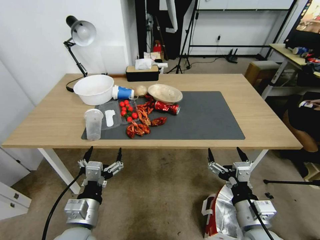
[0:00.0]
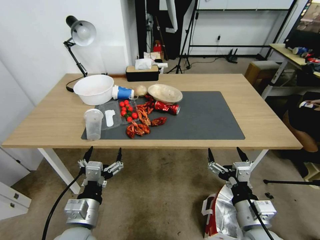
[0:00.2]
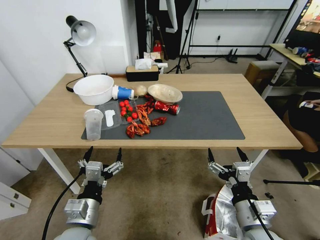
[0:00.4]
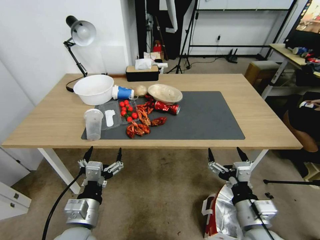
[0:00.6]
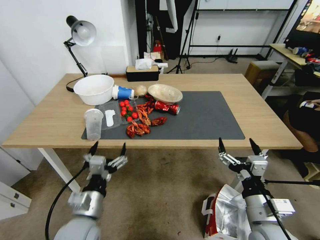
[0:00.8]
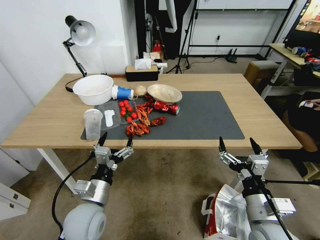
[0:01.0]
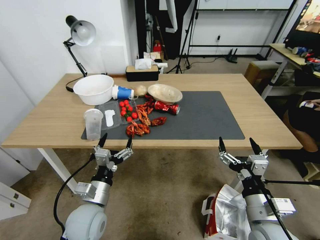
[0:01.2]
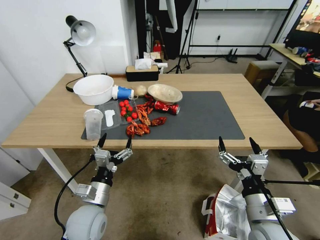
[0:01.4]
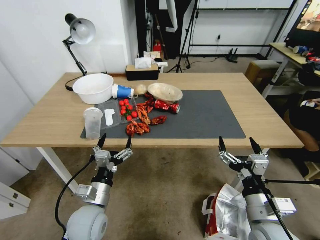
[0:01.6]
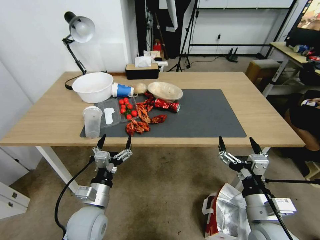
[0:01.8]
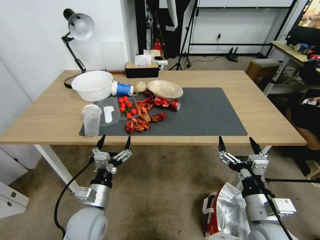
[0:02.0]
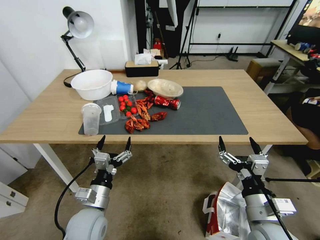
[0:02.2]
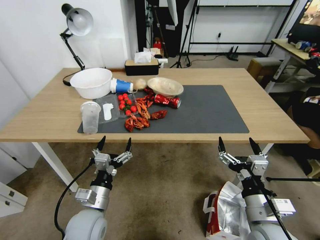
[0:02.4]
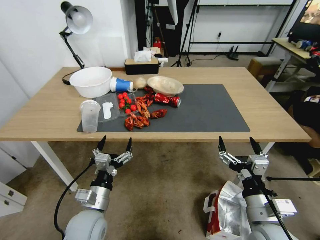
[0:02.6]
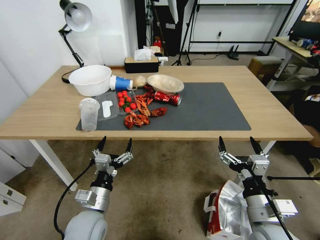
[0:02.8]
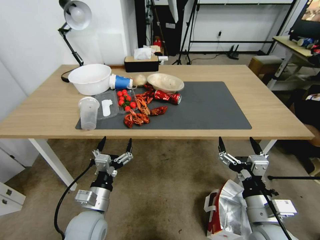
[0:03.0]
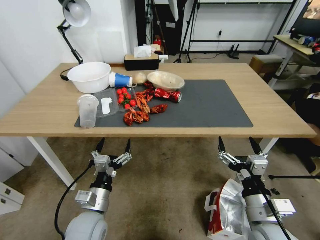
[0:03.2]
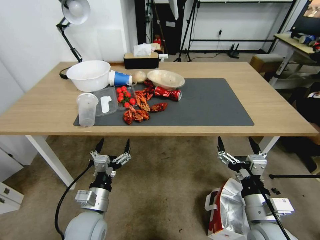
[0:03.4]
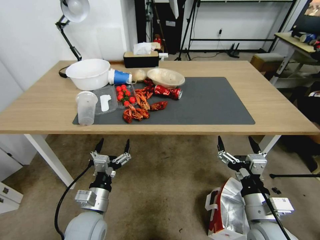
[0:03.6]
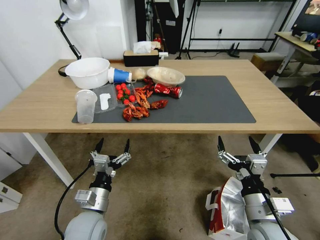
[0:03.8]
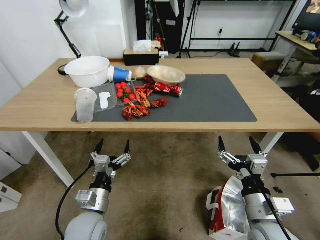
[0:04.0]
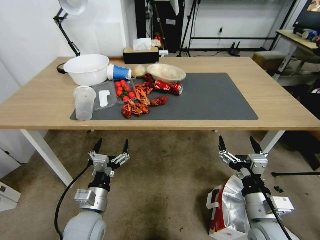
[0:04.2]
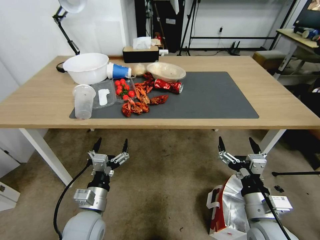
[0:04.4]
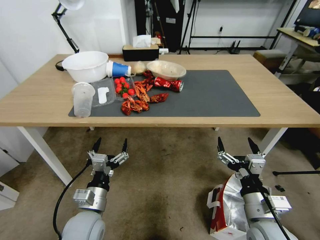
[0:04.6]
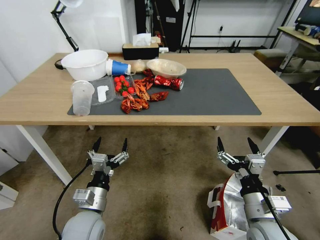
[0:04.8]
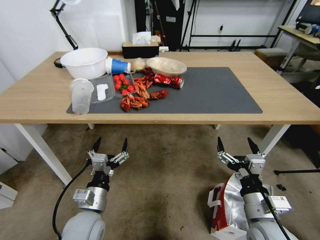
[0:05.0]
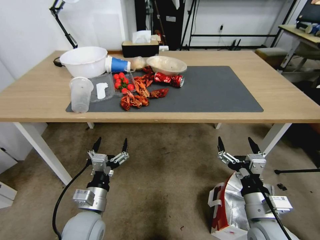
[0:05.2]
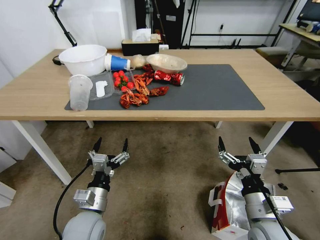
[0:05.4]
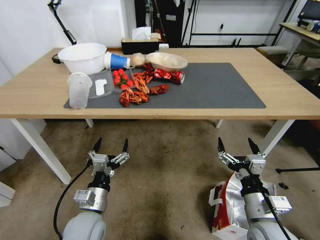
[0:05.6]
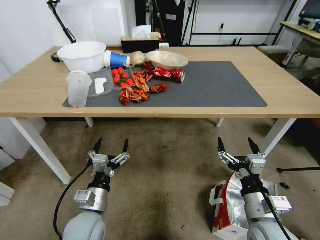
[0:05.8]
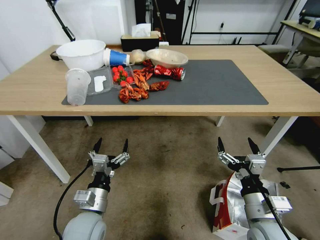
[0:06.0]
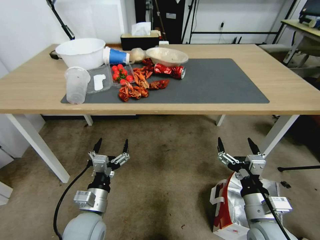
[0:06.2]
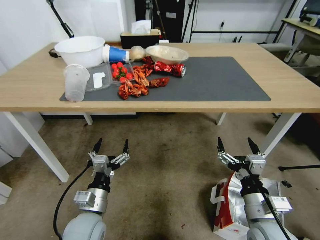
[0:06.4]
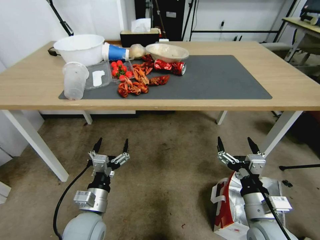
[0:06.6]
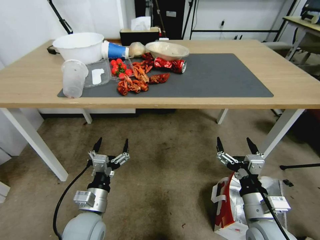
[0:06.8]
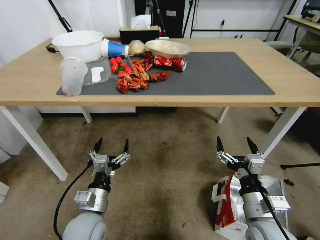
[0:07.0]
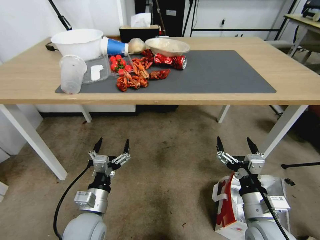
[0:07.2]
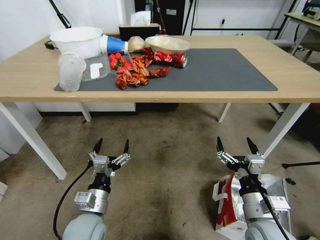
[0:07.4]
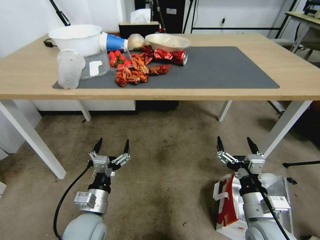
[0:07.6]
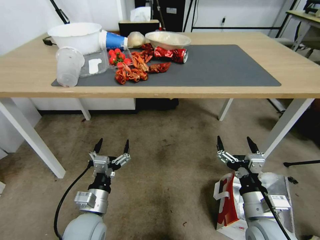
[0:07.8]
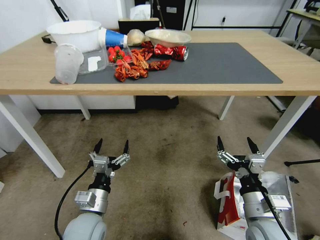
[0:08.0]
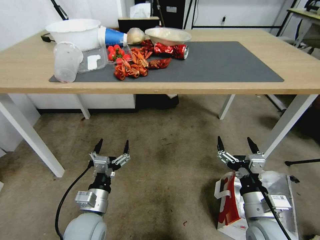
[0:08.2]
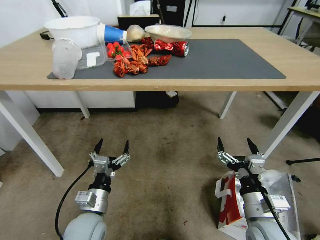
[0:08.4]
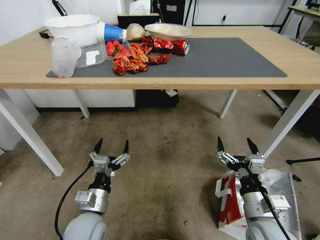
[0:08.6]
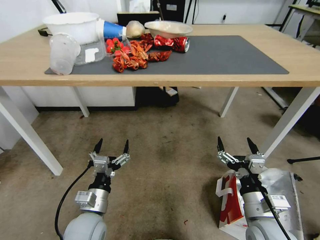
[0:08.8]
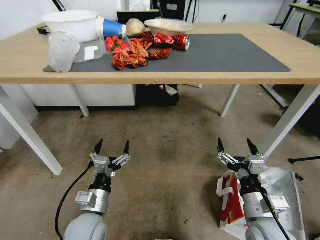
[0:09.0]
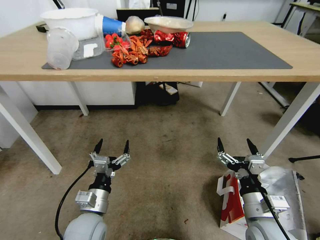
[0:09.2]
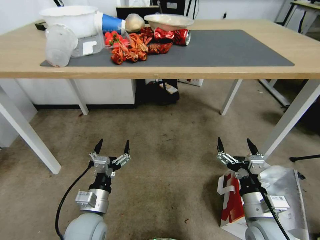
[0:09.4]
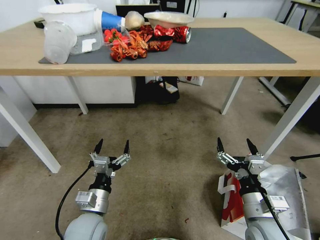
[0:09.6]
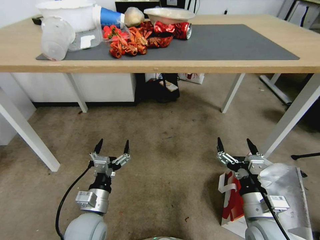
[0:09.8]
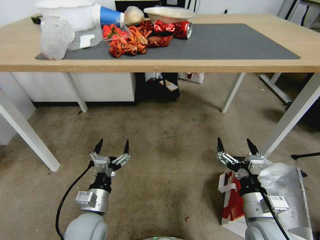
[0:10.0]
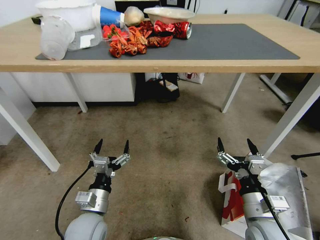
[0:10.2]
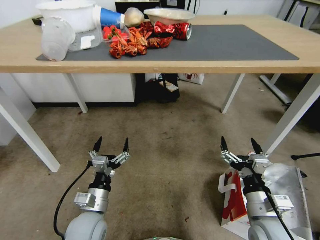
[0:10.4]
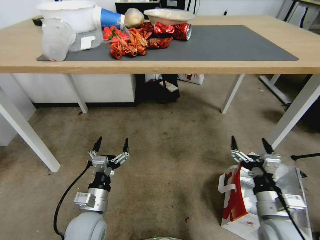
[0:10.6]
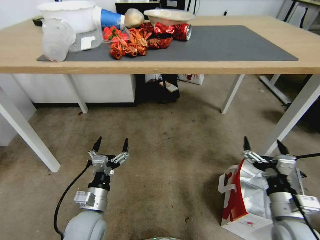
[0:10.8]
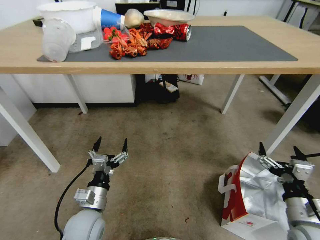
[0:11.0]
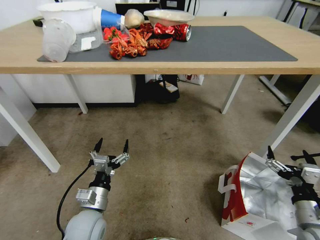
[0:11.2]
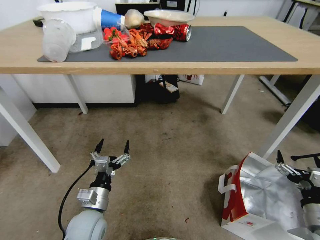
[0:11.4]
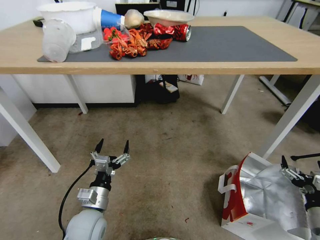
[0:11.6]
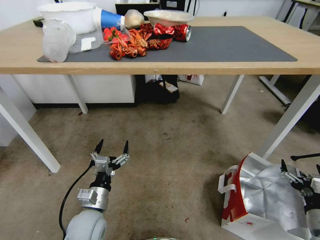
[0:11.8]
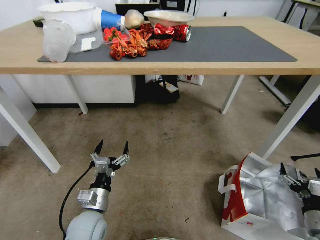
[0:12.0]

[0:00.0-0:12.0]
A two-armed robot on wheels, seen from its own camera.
Task of the whole recording: Pick up the food delivery bag from the floor and place it on the table.
0:10.4 to 0:12.0: The right gripper is displaced to the right and downward by approximately 20 cm.

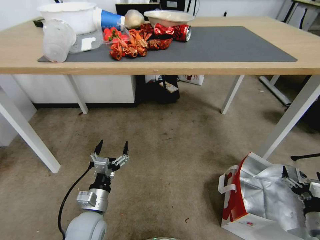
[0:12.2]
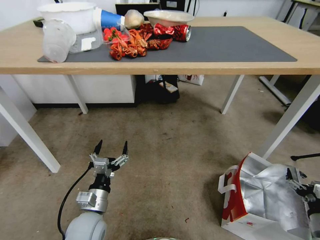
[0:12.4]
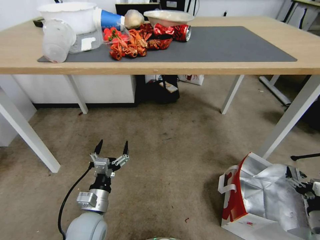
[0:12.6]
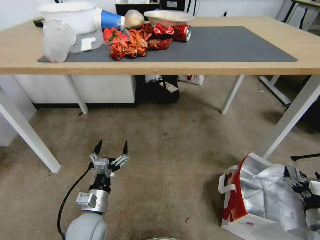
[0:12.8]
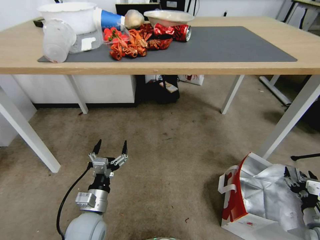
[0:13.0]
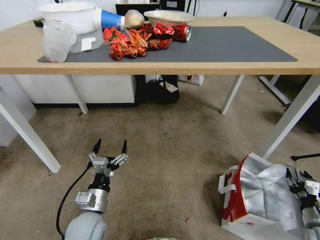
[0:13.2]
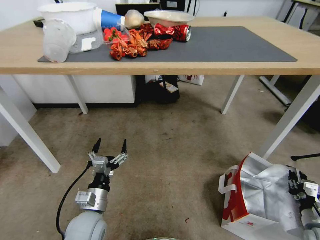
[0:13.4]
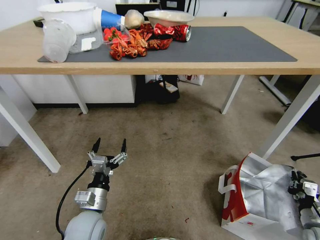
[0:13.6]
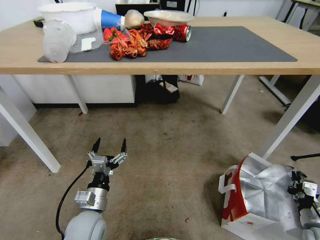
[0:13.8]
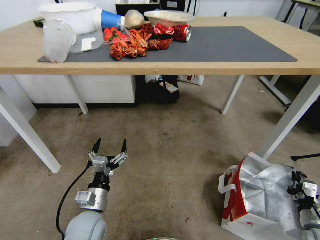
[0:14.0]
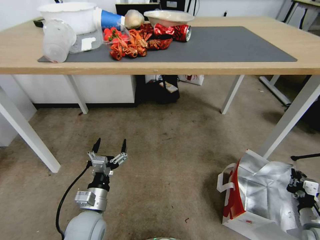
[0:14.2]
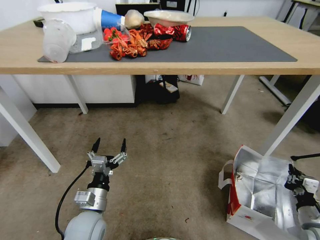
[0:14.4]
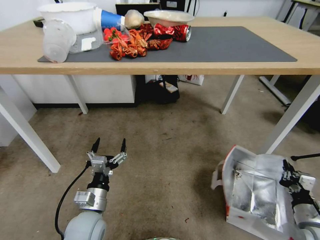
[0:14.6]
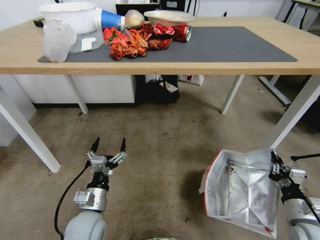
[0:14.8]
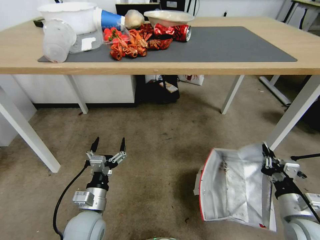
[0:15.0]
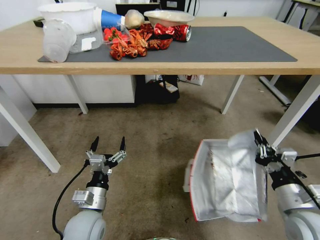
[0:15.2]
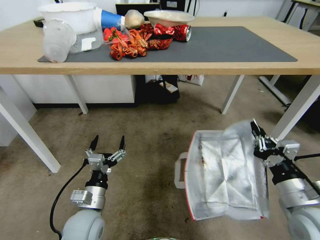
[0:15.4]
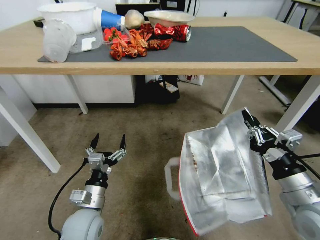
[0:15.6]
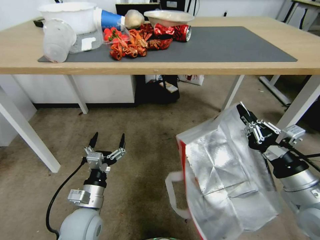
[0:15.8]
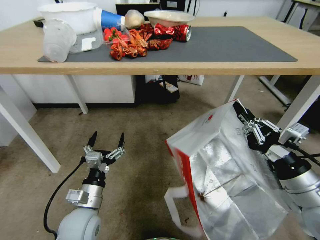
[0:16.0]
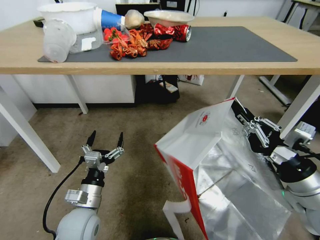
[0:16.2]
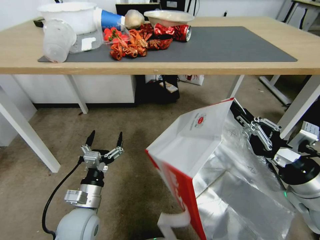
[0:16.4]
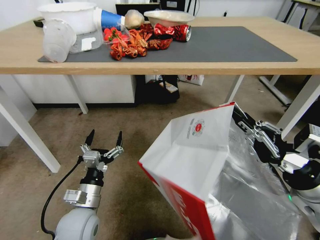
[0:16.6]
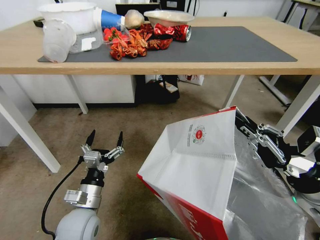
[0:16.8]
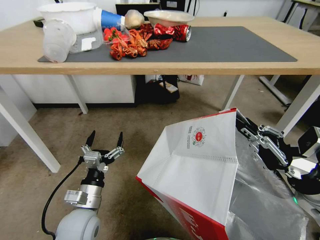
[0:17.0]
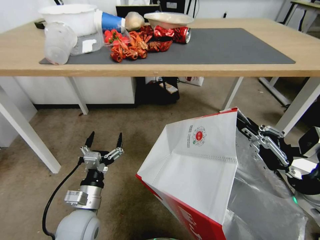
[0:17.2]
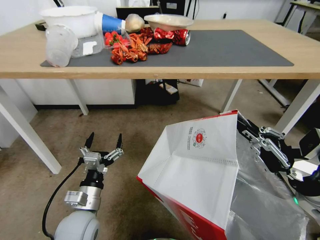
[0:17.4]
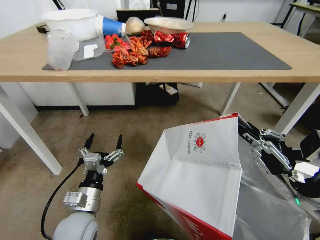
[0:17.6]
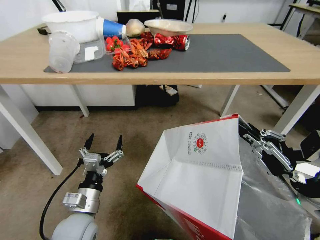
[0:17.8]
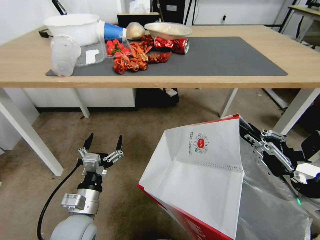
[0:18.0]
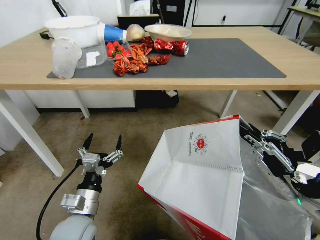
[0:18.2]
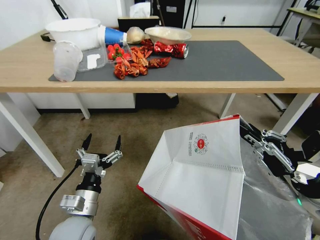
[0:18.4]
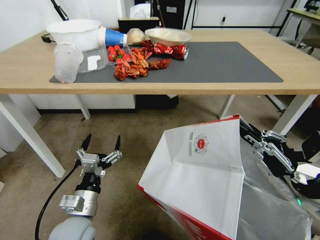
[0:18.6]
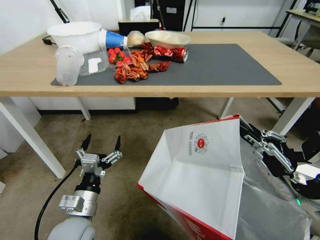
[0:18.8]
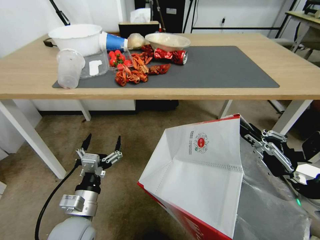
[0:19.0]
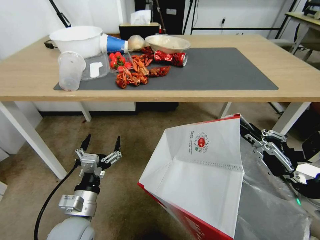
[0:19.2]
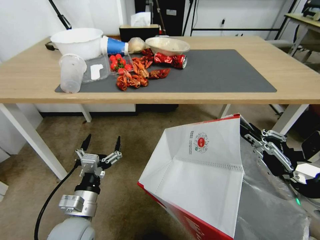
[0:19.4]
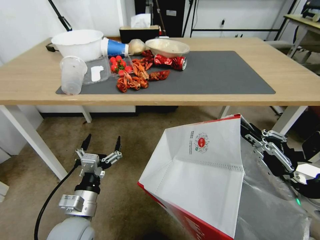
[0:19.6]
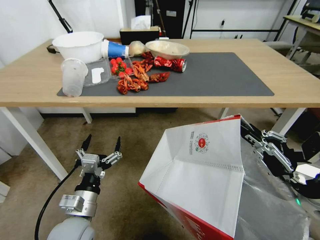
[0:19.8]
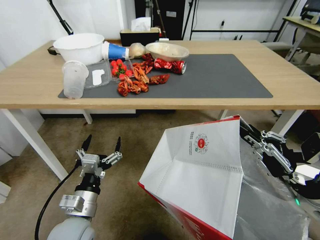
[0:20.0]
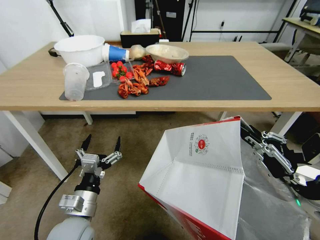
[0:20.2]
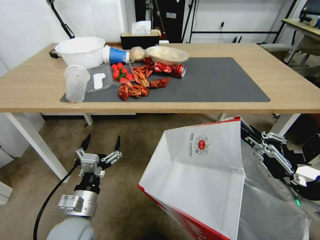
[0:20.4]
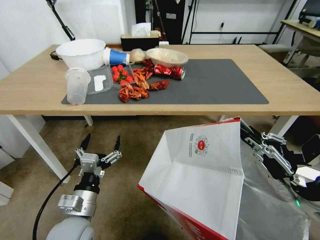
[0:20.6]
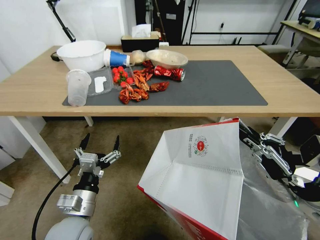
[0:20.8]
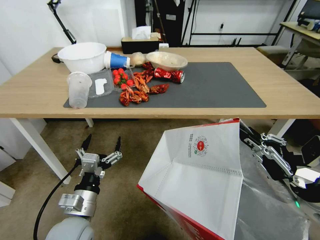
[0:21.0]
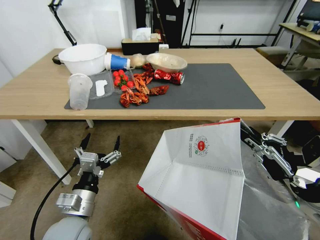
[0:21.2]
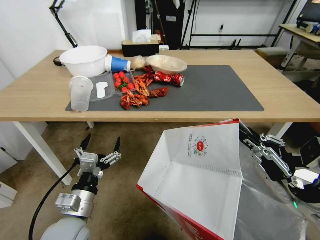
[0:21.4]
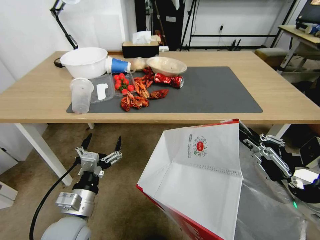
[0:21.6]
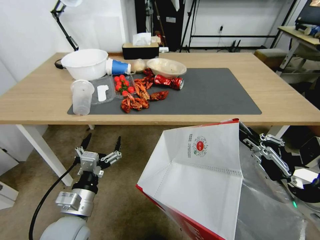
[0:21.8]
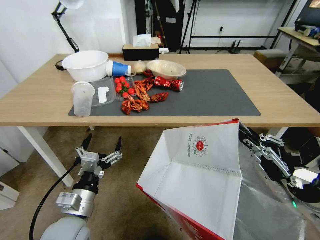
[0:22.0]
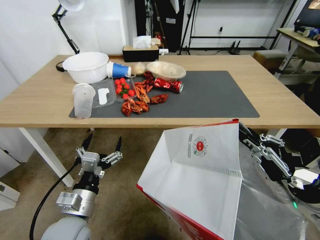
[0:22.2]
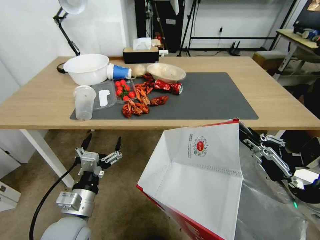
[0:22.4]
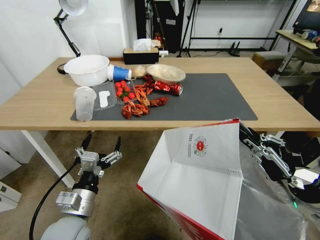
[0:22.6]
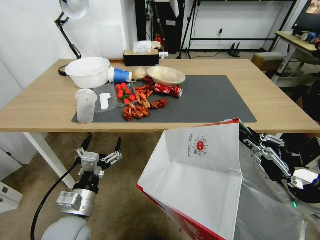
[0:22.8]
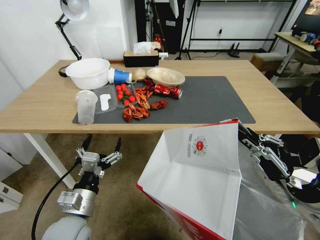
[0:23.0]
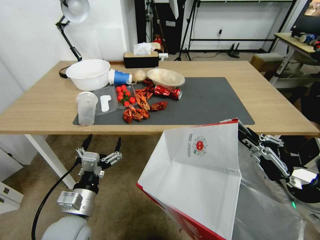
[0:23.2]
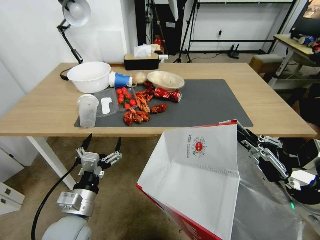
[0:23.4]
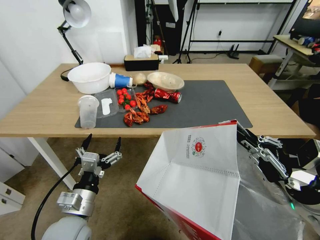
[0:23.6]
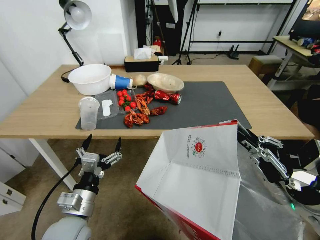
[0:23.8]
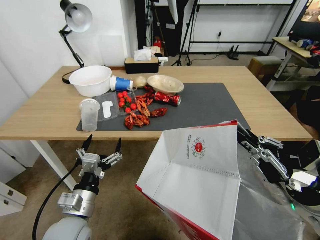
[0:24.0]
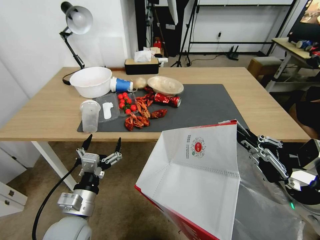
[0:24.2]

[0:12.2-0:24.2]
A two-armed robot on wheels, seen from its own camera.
Task of the whole recording: Pick up the food delivery bag from the floor and place it on the table.
0:12.2 to 0:13.8: The right gripper ends up approximately 5 cm from where it was, and closes.
0:13.8 to 0:15.2: The right gripper heads upward and to the left, covering some 20 cm.
0:15.2 to 0:16.6: The right gripper heads upward, covering about 10 cm.
